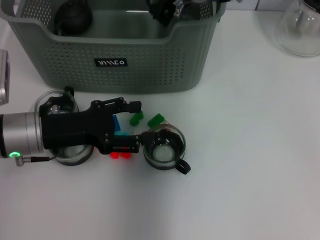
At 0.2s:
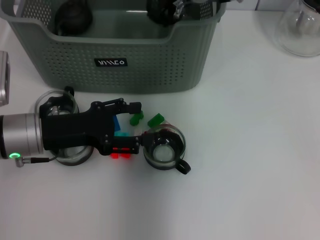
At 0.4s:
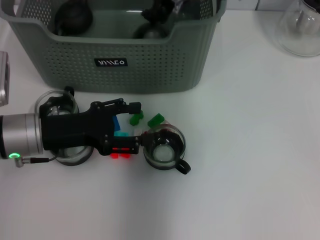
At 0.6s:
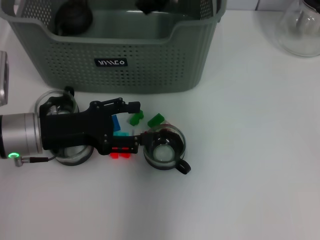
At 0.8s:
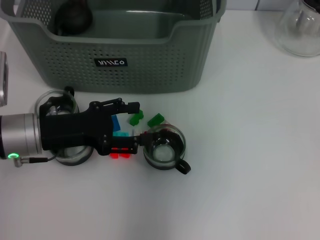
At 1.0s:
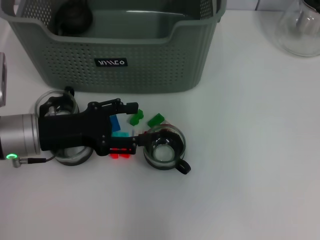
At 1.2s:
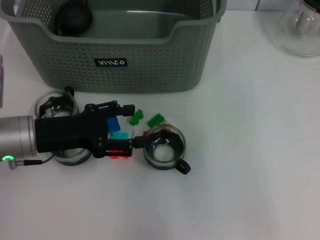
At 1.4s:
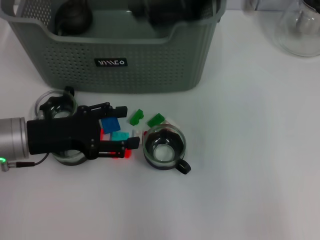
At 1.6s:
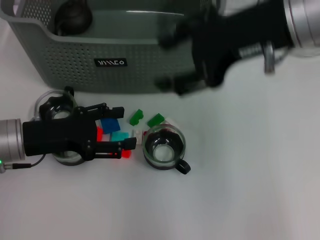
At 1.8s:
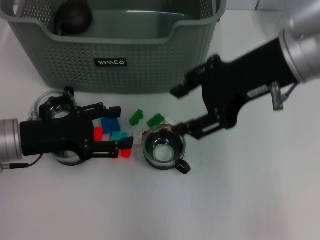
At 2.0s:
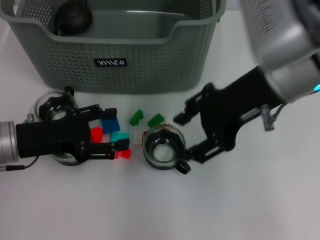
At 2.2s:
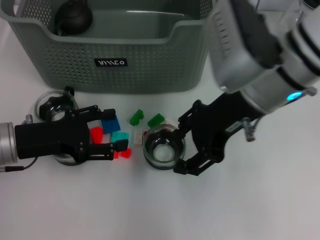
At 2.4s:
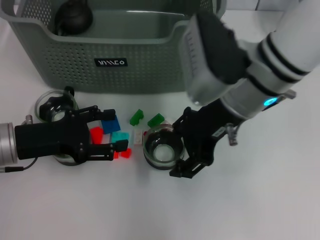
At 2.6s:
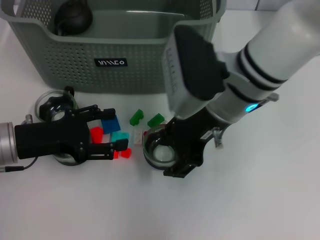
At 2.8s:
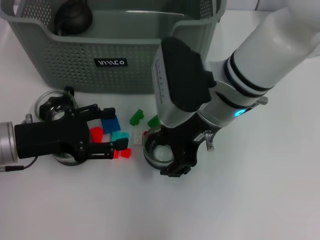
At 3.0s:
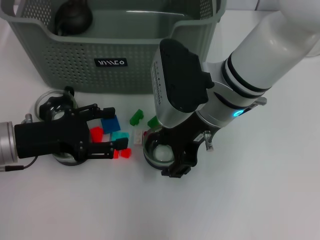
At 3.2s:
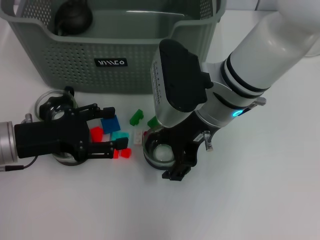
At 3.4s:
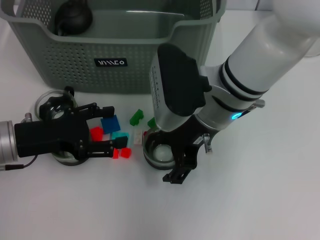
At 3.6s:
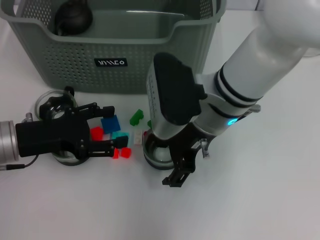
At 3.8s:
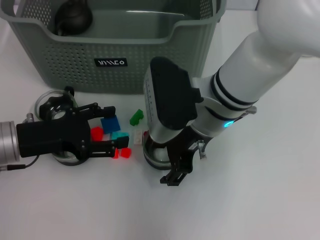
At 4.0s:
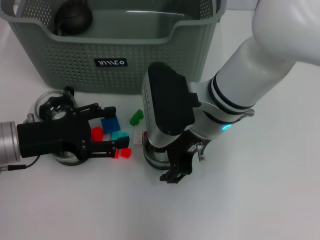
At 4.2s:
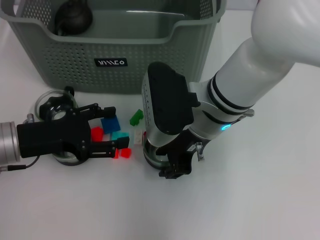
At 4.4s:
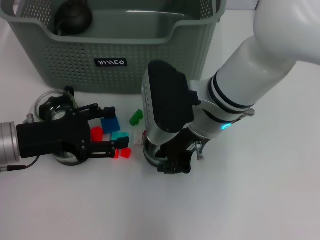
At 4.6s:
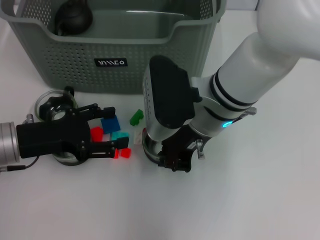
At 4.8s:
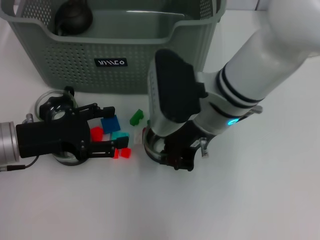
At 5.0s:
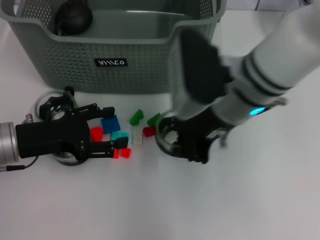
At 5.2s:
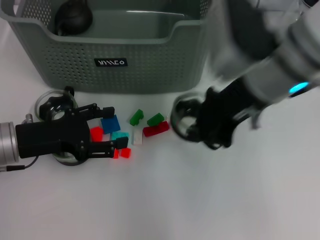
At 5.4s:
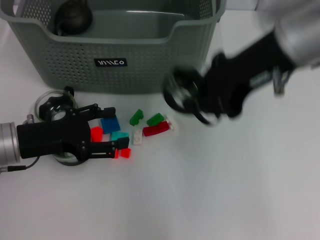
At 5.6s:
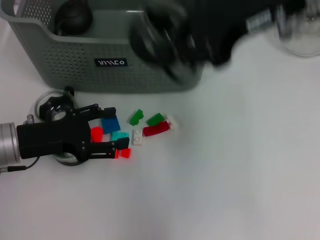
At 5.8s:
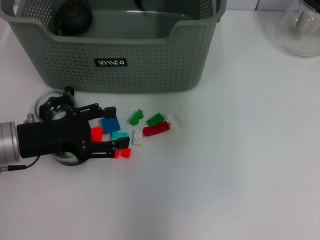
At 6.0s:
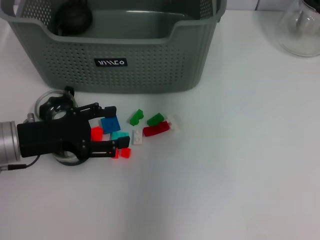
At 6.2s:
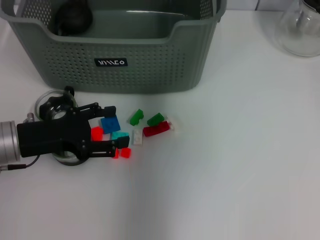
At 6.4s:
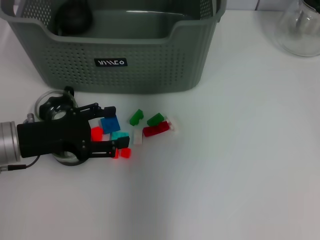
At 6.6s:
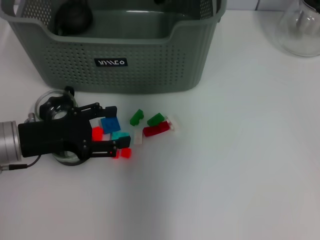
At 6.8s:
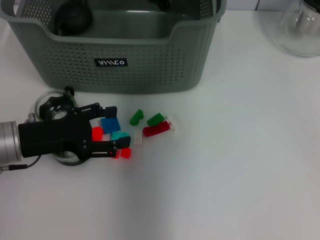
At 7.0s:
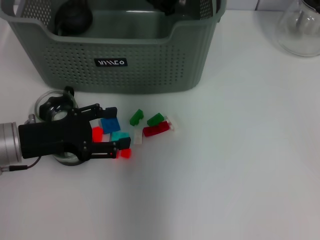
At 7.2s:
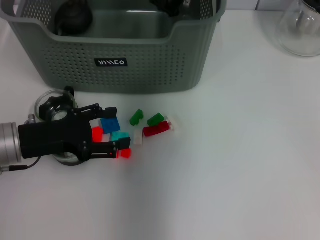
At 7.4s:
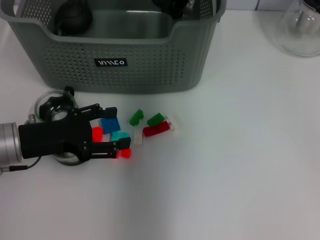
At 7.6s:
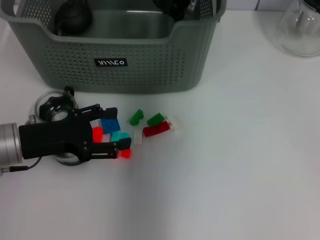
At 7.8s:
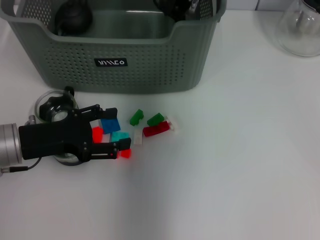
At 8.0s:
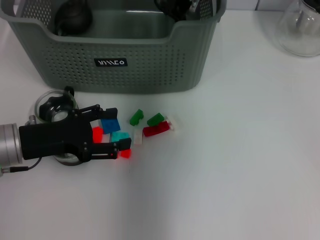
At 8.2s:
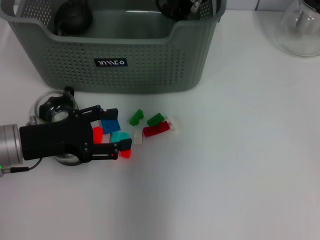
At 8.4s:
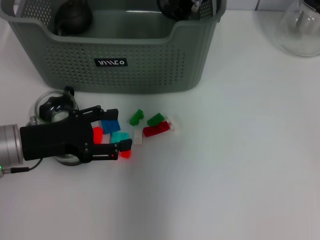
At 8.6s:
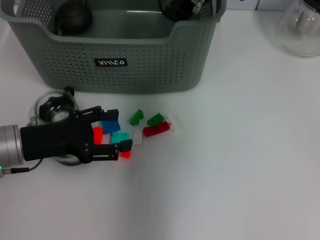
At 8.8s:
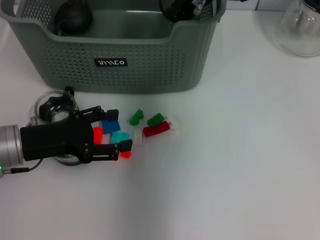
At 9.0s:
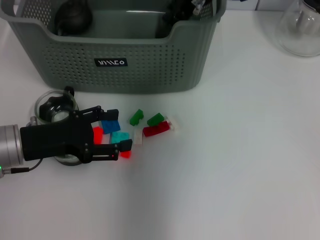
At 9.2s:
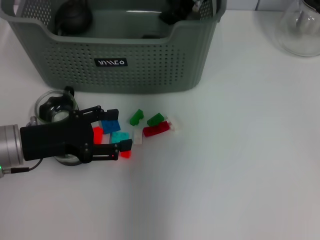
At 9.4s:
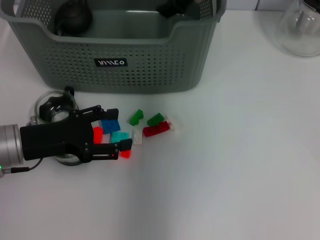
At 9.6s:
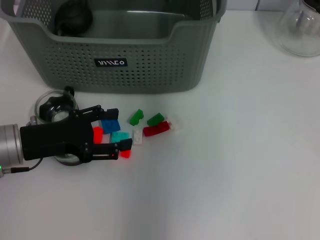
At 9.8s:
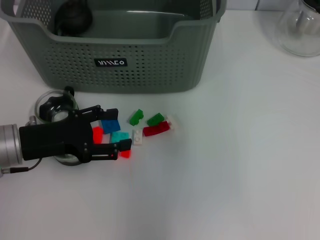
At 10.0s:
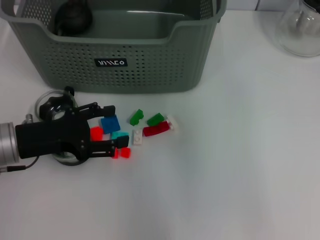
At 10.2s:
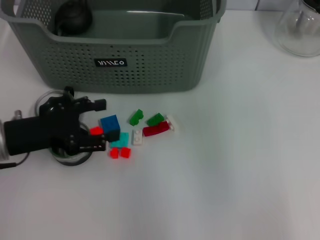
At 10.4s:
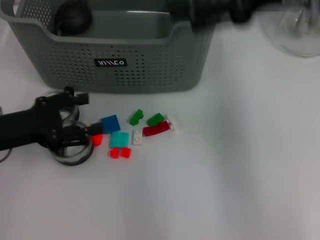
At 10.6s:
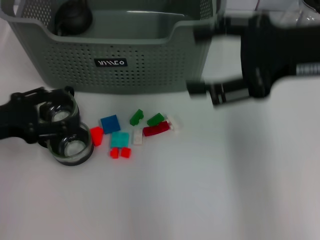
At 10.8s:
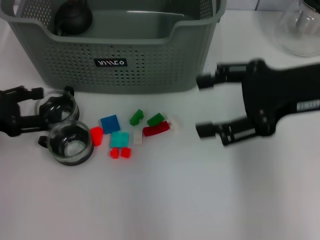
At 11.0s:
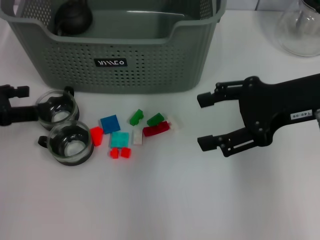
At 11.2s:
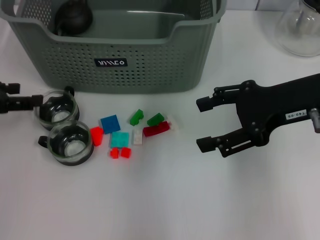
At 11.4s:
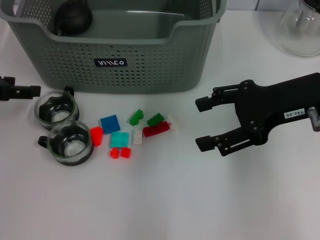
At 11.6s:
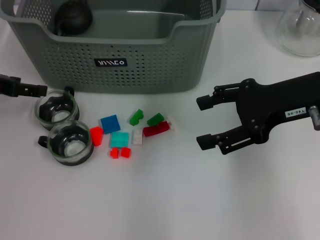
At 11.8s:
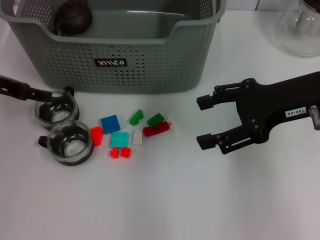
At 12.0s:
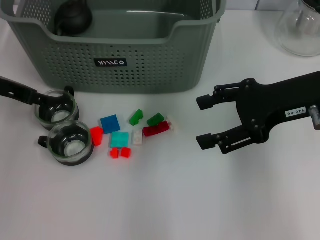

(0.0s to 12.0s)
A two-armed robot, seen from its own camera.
Task of the whole recording: pick up the teacup on the table and place it into the storage bin, pick up the block on the table and place it into the storage bin.
Step, 0.6s - 4.6s: Grasp the cup with right gripper.
Step, 4.8s - 9.2s: Place the cup in the storage box with right gripper.
0.0s - 1.6s: The right gripper is displaced backward, to the right and upward by approximately 20 cm, and opens.
1.6s - 3.0s: The right gripper goes some 15 cm downward and to the left.
3.0s - 4.4s: The grippers make only small movements.
4.4s - 6.0s: The right gripper goes about 25 cm upward and forward, and closes its fingers.
6.0s - 7.6s: The right gripper travels downward by roughly 15 cm.
7.6s - 9.0s: There are only small adjustments of the grippers.
9.0s - 10.4s: The right gripper heads backward, to the right and upward, covering approximately 20 cm, and opens.
10.4s - 12.0s: The left gripper is displaced forward and upward by about 10 cm. Meanwhile the right gripper moves downward, roughly 10 cm.

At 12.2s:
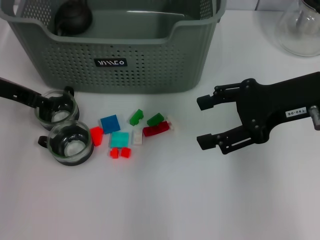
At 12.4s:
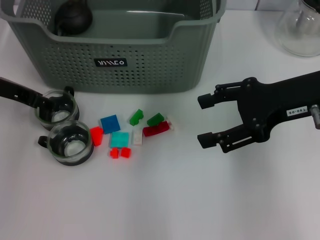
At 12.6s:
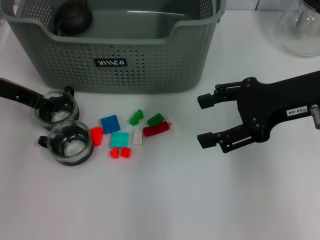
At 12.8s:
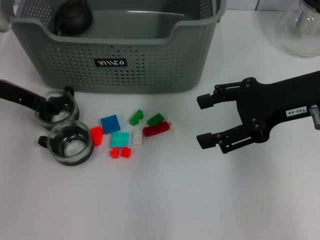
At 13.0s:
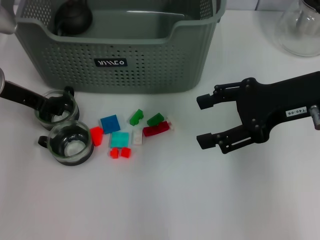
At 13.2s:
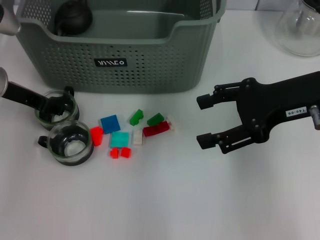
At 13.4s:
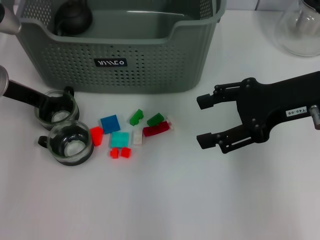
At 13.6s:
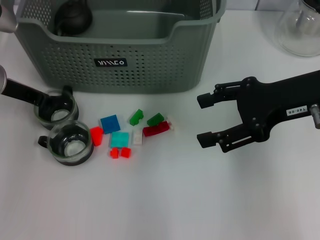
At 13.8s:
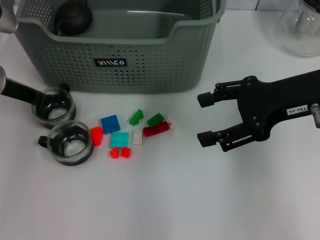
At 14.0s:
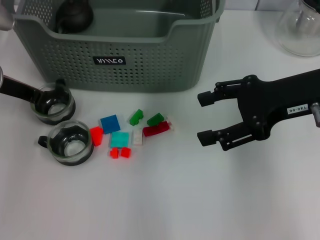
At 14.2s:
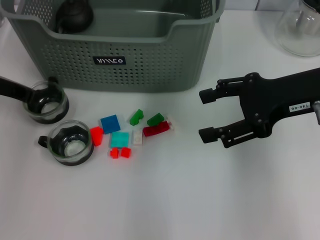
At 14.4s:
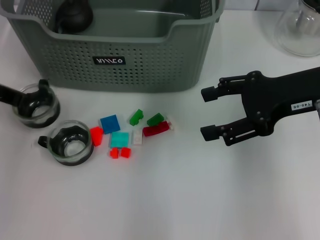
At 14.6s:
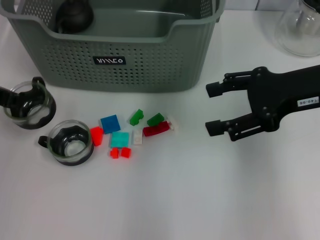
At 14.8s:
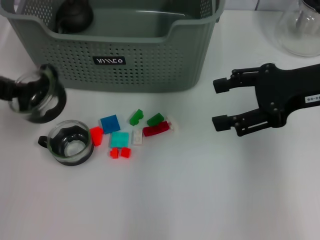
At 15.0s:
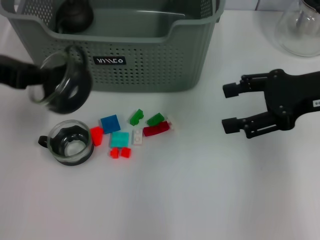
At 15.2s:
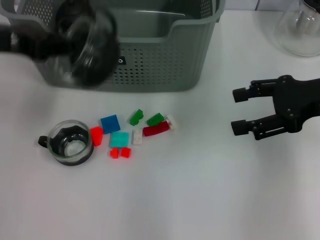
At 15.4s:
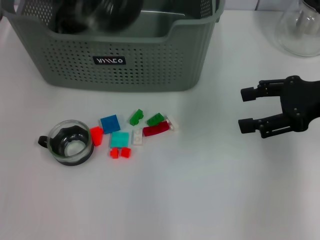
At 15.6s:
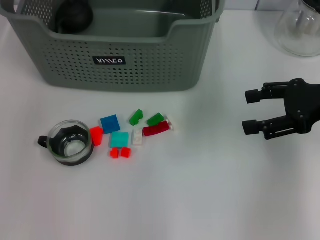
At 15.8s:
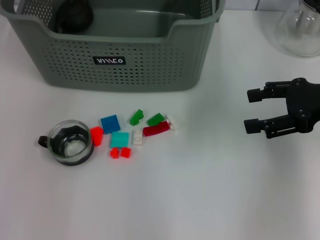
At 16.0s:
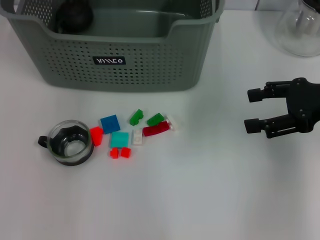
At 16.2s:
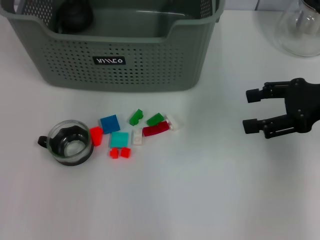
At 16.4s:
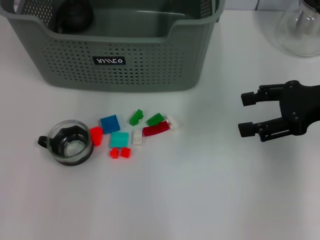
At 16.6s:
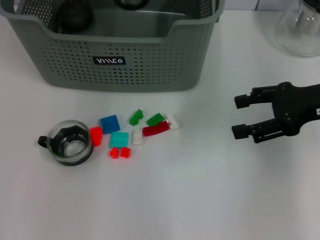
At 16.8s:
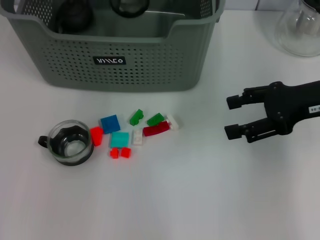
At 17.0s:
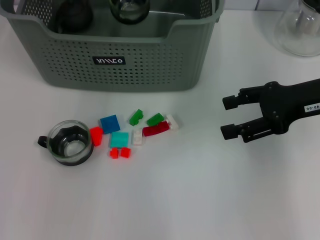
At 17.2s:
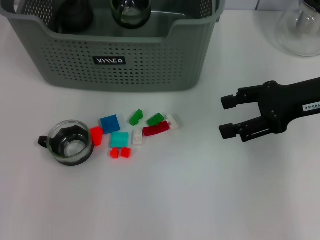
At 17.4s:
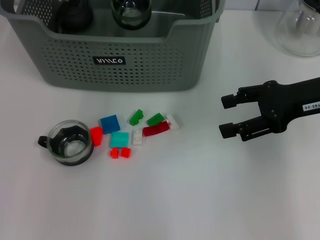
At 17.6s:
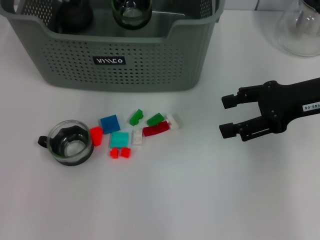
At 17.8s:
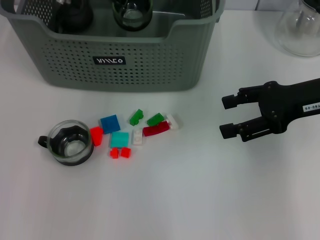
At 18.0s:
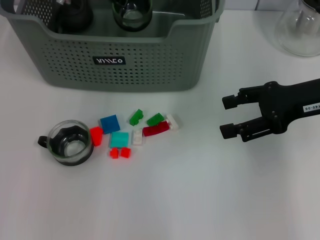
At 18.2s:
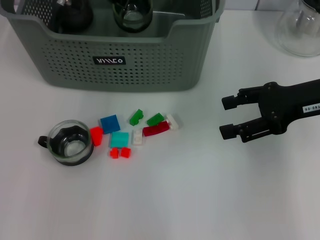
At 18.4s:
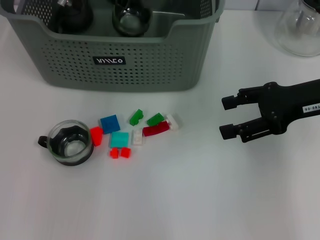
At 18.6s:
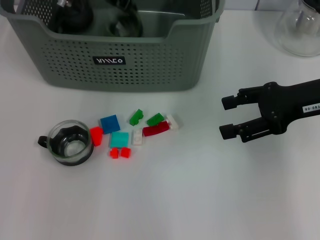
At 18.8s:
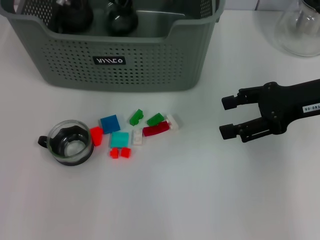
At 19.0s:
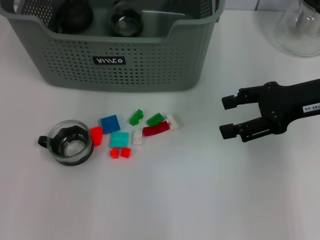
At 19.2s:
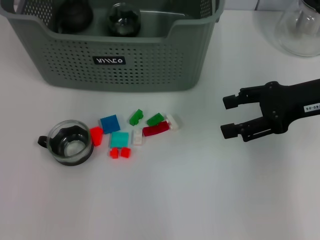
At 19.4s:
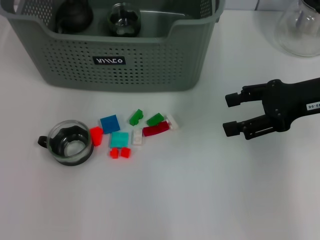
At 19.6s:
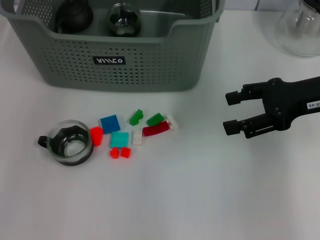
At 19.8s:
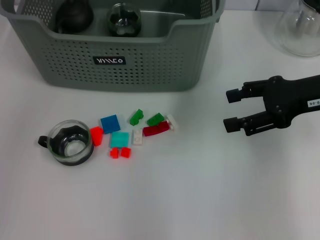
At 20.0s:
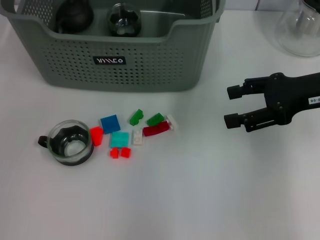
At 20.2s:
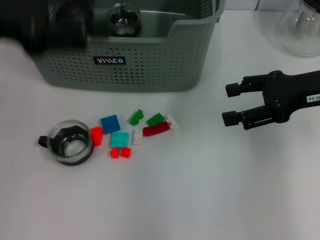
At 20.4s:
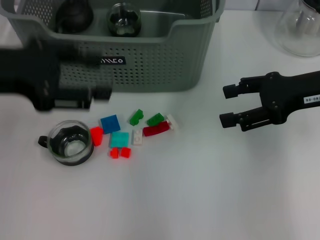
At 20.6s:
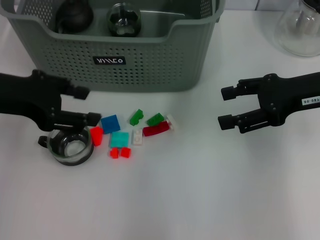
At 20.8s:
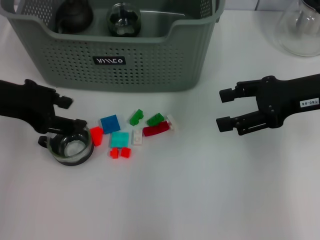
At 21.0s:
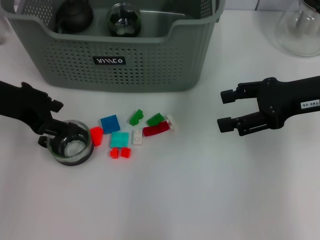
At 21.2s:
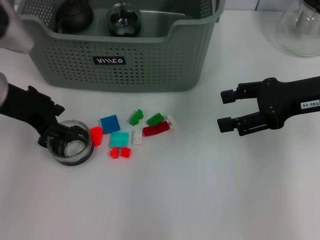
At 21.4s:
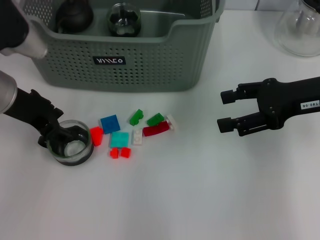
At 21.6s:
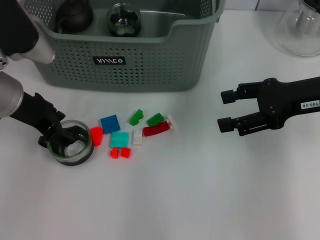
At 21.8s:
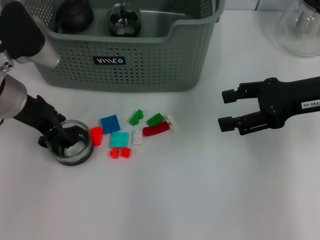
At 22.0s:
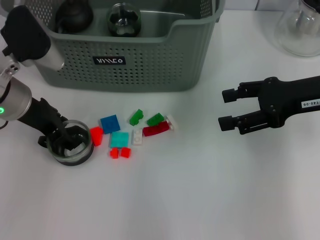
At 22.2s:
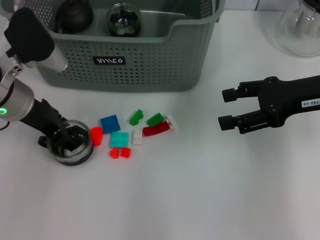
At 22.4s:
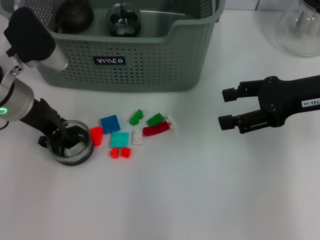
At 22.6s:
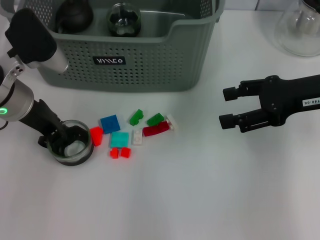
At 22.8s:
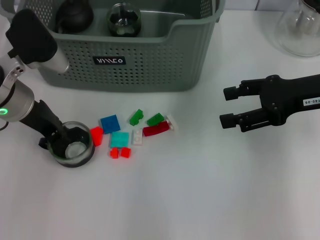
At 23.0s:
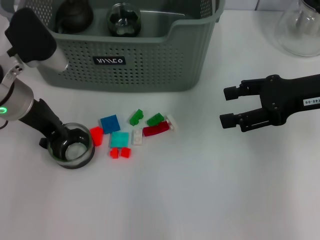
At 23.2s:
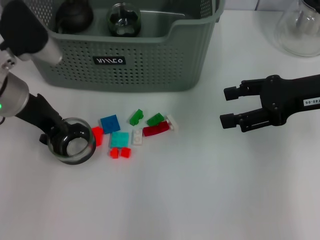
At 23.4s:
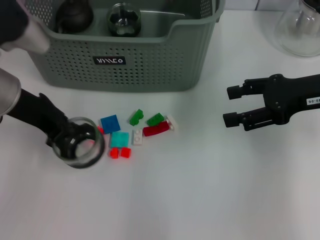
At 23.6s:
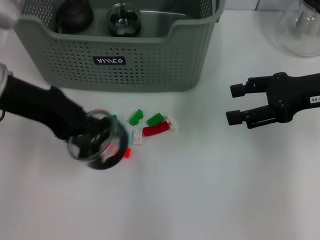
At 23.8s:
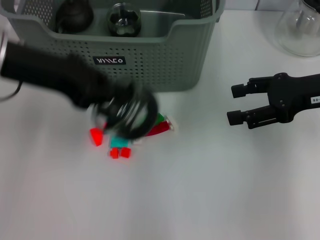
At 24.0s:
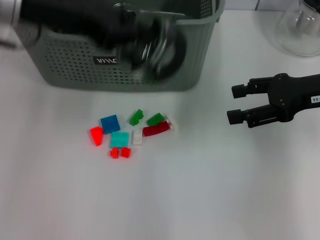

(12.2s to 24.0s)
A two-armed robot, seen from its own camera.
Task of the whole recording: pick up the teacup on the table and place it into the storage bin, pick up the block on the table and place it into the storage bin.
Step, 14.0s - 19.0s: Place the cup in the storage box with left gripper.
Step, 19.2s - 22.8s: Grasp the cup with left gripper.
12.2s - 13.6s: The left gripper closes.
13.6s - 15.2s: The left gripper goes some 10 cm upward and backward, and closes its fingers. The right gripper shifts by some 5 cm.
15.2s - 16.6s: The left gripper shifts roughly 25 cm forward and to the right.
16.6s - 18.2s: The grippers move only a little.
18.2s - 19.6s: The left gripper moves upward, to the left and backward, about 15 cm, and opens up.
19.6s - 21.0s: The left gripper moves downward and backward, about 15 cm.
21.0s - 22.6s: The left gripper goes roughly 5 cm downward.
22.6s - 24.0s: The left gripper shifts about 15 cm upward, and closes up.
